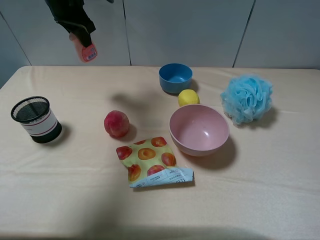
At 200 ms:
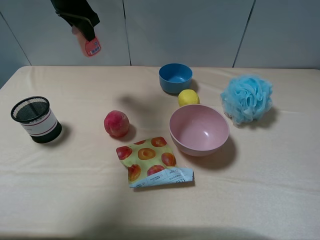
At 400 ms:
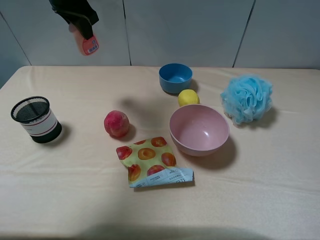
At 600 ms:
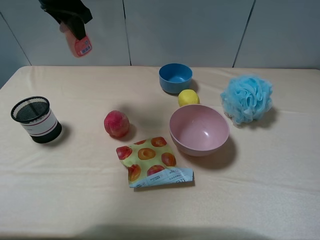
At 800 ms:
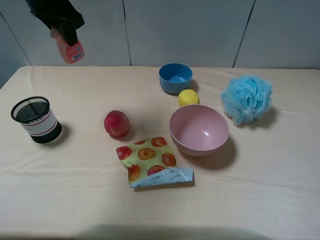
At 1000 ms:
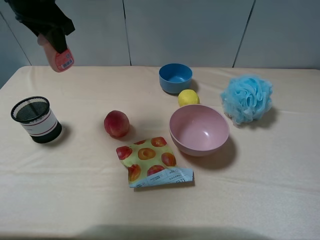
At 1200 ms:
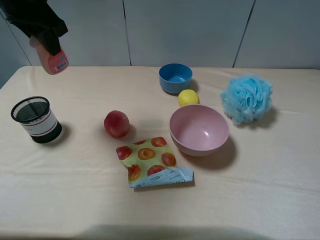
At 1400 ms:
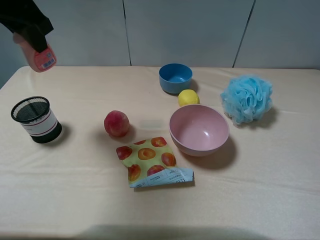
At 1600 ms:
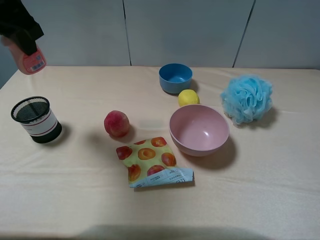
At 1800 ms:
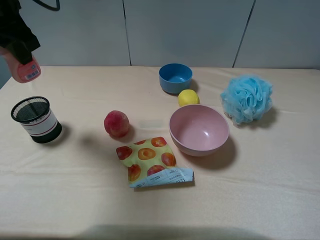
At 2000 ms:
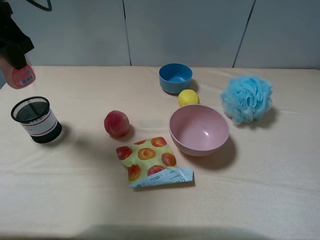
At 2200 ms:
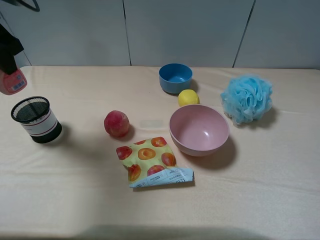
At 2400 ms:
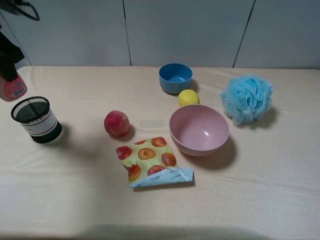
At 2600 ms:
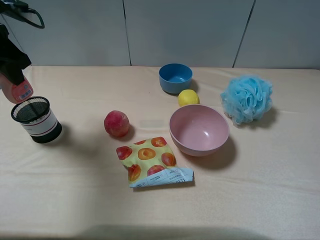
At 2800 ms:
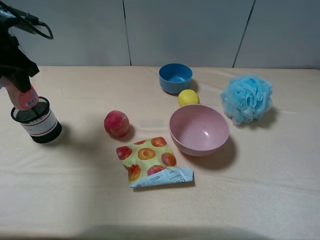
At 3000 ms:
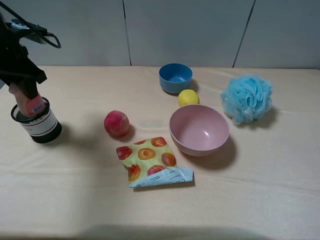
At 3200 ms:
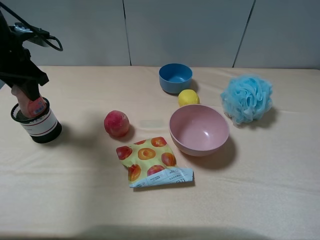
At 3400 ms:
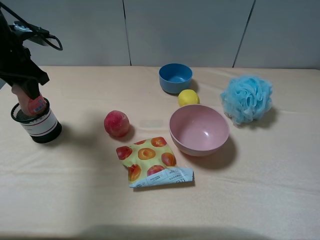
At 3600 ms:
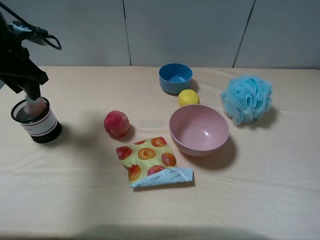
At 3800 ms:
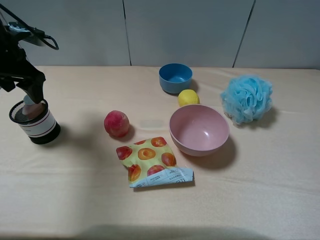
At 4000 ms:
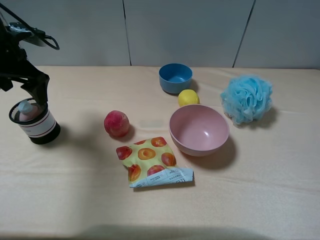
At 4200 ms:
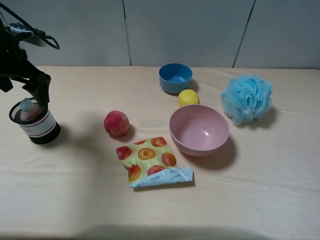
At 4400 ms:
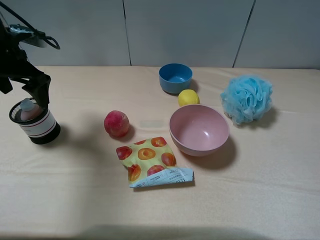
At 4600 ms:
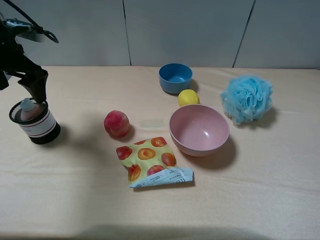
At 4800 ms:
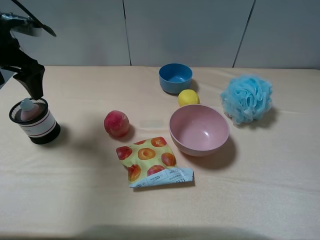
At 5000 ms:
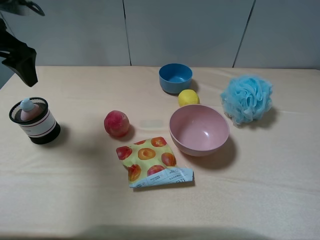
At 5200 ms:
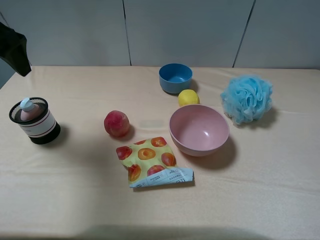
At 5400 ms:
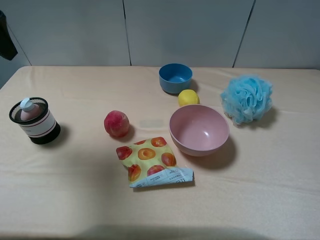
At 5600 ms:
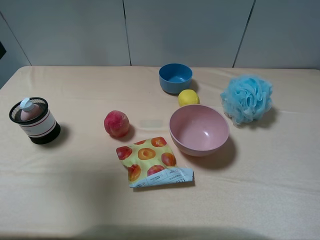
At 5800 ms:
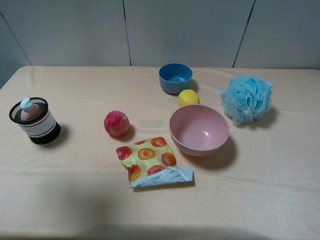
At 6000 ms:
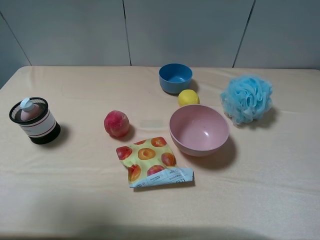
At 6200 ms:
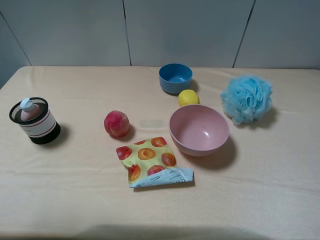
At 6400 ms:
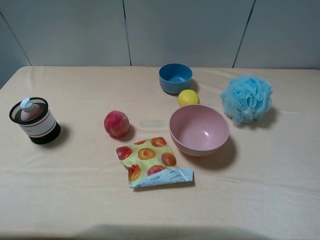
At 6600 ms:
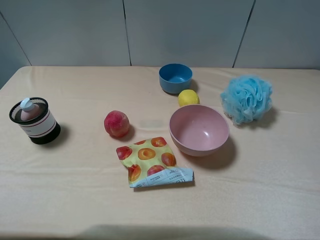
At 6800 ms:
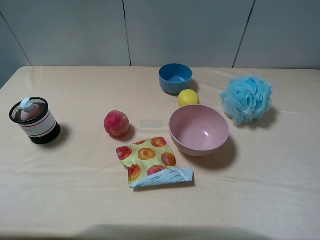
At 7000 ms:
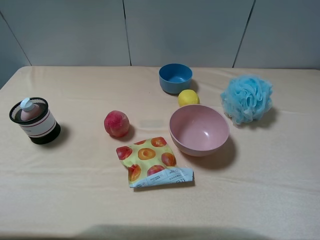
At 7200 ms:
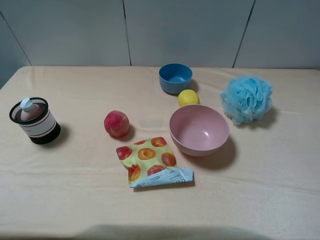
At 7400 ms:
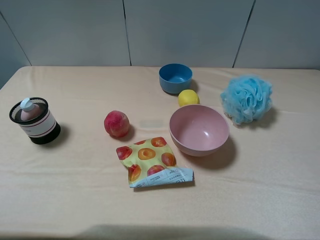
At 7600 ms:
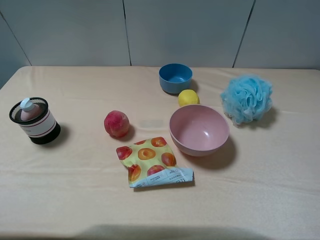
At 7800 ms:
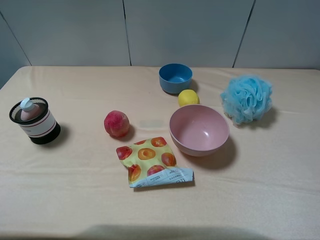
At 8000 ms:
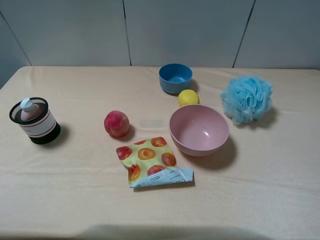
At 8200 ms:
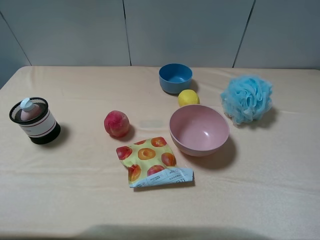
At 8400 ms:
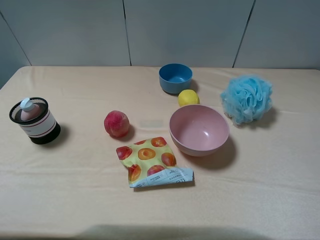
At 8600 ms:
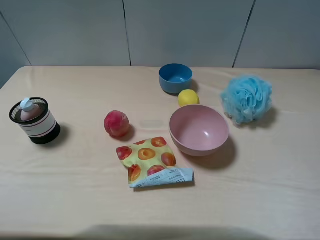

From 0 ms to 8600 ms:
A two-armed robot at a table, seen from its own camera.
Task of the whole recording: pick up an item with a gripper and place it in a random container on the table.
Step, from 0 ms to 3800 ms: Place the pink laundry detergent into the pen container with the left gripper.
From 0 ms to 1400 ms: The left gripper moves backward and upward, about 15 cm.
From 1400 ms to 2800 ms: The left gripper heads to the left and downward, covering about 10 cm.
From 2800 ms to 4400 ms: The left gripper opens up.
From 4400 ms to 5800 ms: The left gripper goes some 20 cm upward and backward.
From 5800 ms to 7200 ms: The left gripper moves backward, approximately 20 cm.
